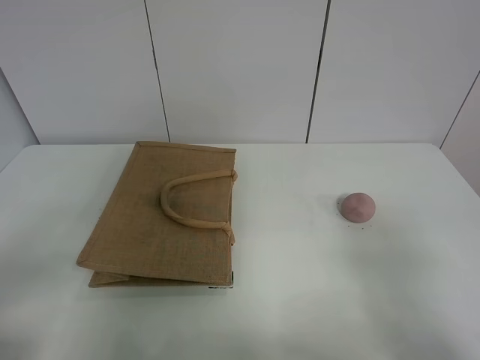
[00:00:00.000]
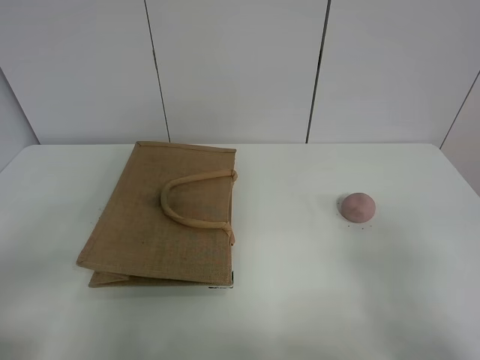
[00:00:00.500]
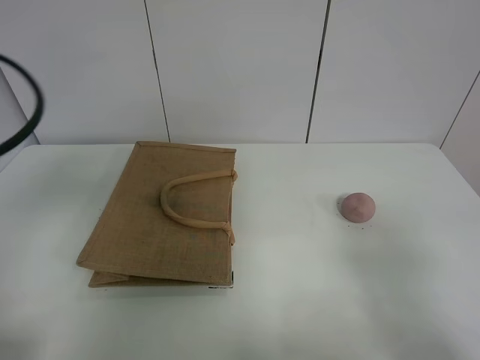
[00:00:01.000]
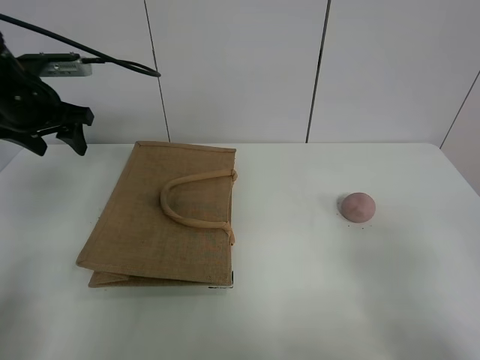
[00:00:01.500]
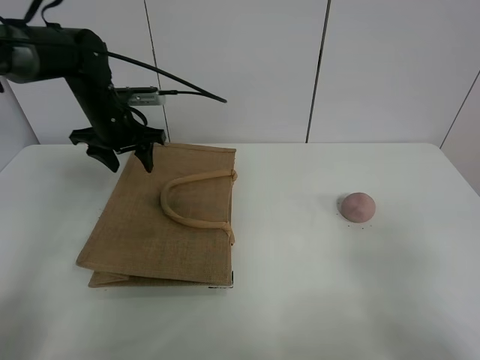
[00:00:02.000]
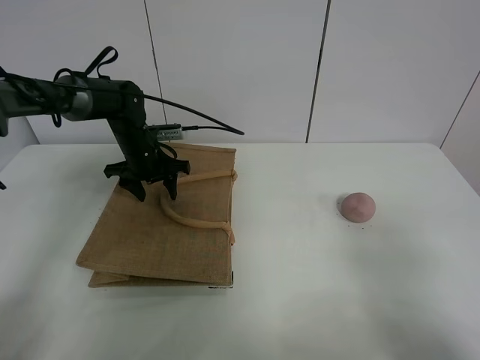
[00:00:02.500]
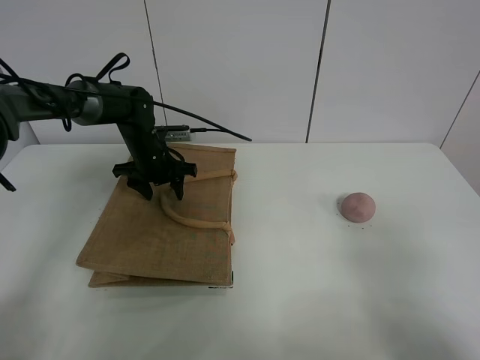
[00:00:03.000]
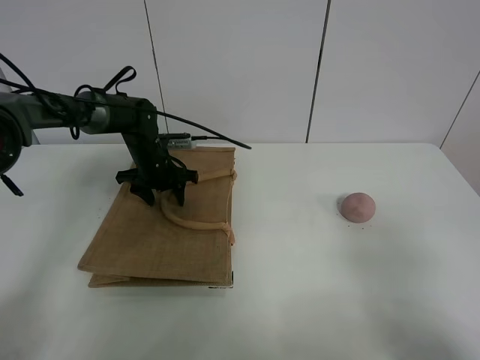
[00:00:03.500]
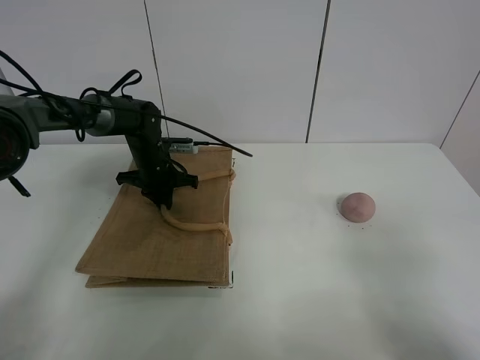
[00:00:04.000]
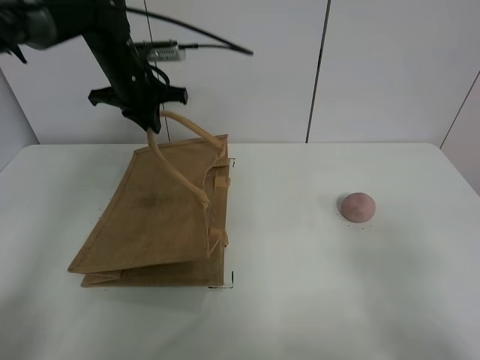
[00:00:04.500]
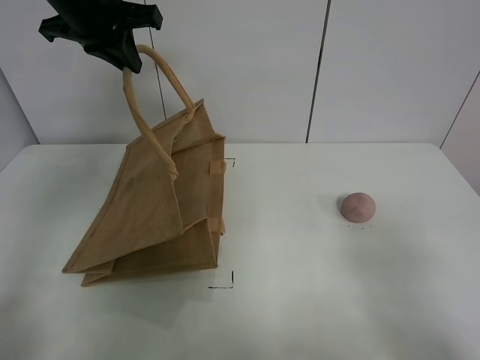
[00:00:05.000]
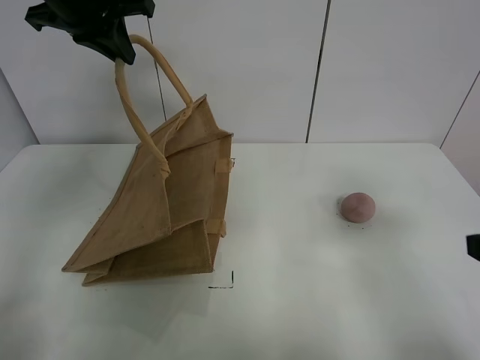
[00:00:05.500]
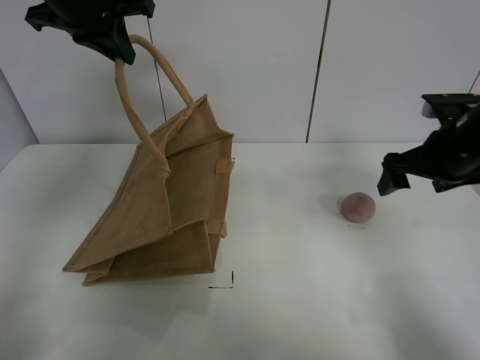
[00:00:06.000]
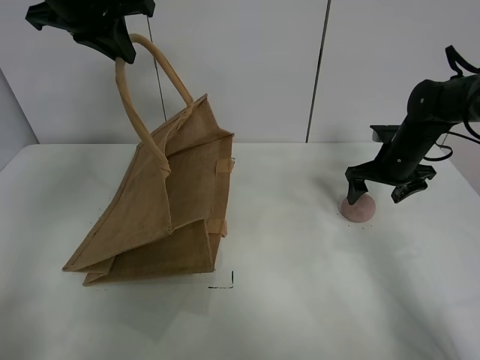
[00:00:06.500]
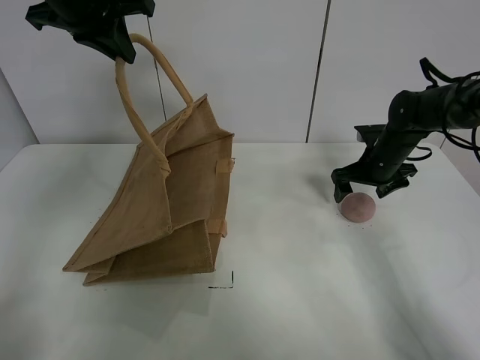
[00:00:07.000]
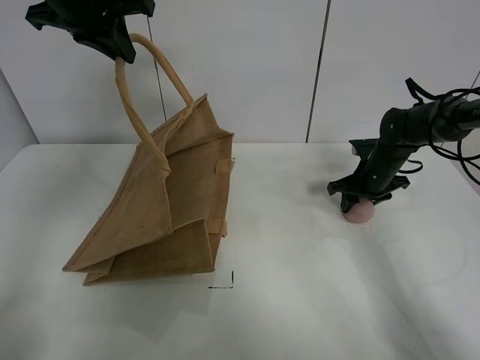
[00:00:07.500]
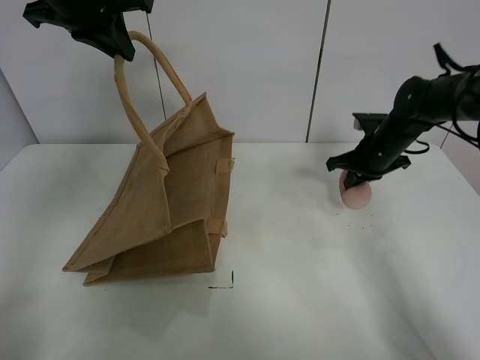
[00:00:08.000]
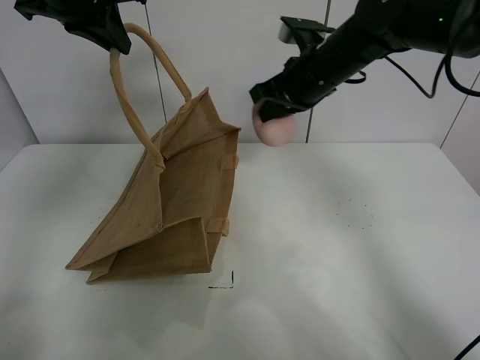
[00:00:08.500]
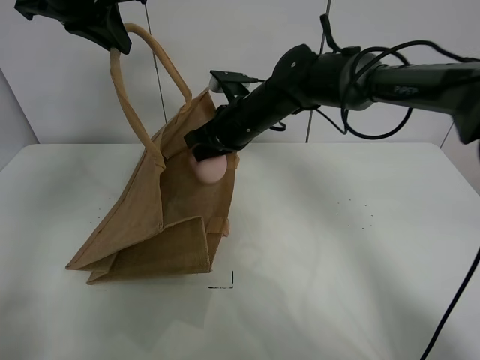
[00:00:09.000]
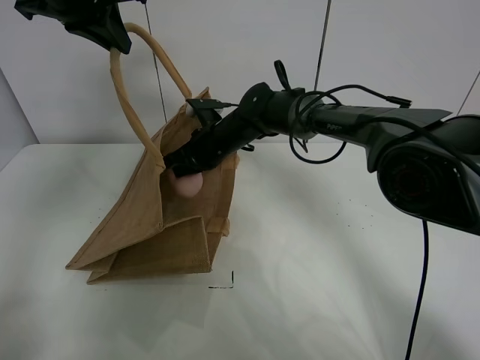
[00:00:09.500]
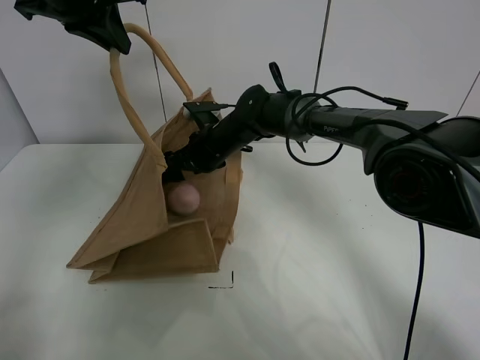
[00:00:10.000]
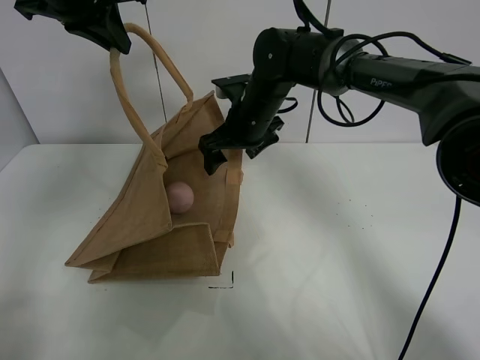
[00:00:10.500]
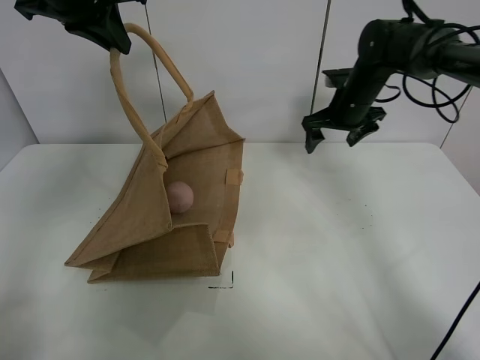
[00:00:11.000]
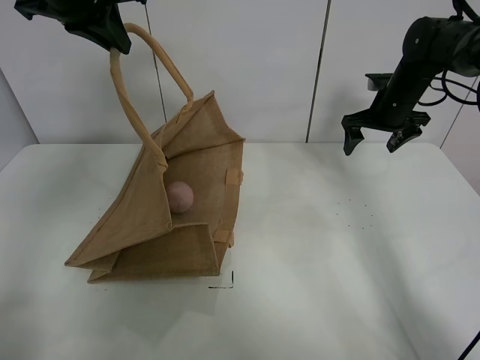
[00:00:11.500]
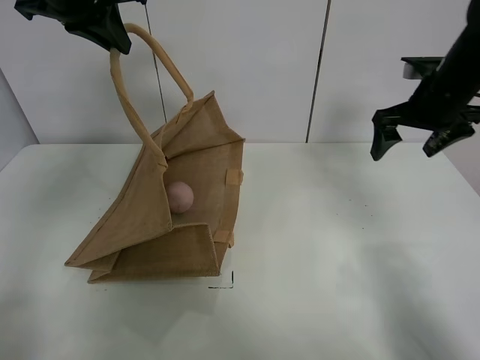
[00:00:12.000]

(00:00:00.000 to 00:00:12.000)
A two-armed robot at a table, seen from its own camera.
Task of the whole recording: open the brown linen bag and put the peach in the bag.
Step, 00:00:00.000 - 00:00:05.000: Lift the handbag with left gripper.
Step, 00:00:05.500 - 00:00:07.500: Grasp the peach with right gripper.
Step, 00:00:08.000 - 00:00:10.500: Place the peach in the handbag with right gripper.
00:00:00.000 - 00:00:02.000: The left gripper heads forward, covering some 40 cm.
00:00:02.000 - 00:00:04.000: The left gripper shifts roughly 10 cm downward, and closes its fingers.
00:00:04.000 - 00:00:06.000: The left gripper shifts some 30 cm upward; the right gripper goes about 35 cm forward.
00:00:06.000 - 00:00:08.000: The right gripper travels forward and downward by approximately 10 cm, and closes its fingers.
00:00:08.000 - 00:00:10.000: The right gripper goes roughly 30 cm to the left, and opens up.
00:00:10.000 - 00:00:12.000: The right gripper goes some 35 cm to the right and upward.

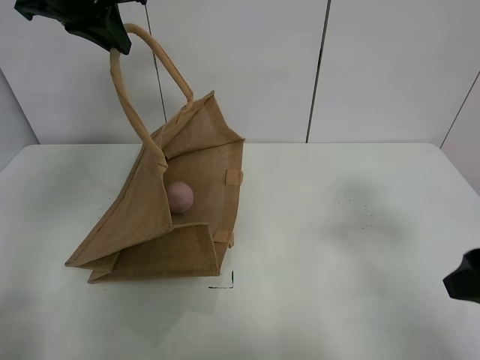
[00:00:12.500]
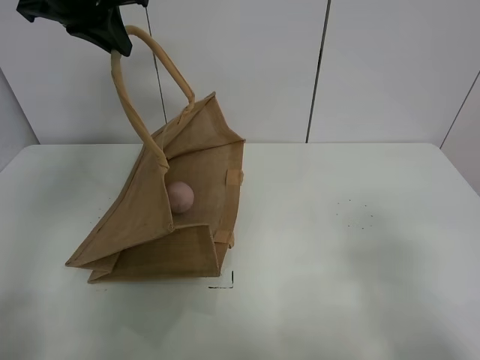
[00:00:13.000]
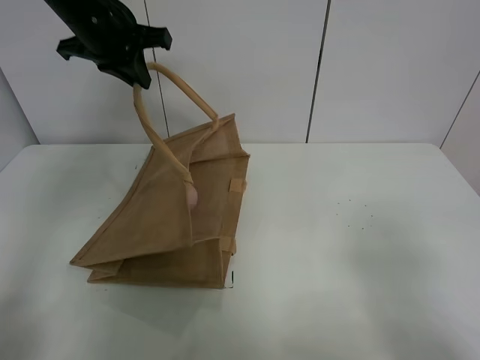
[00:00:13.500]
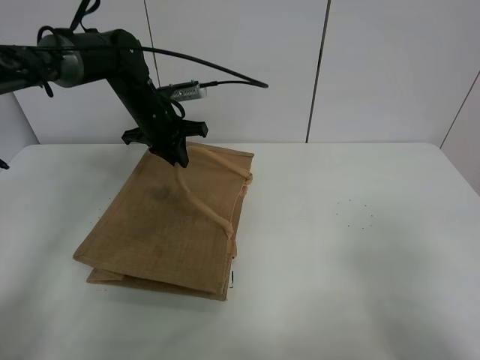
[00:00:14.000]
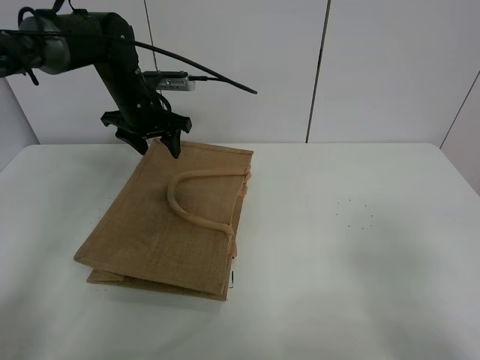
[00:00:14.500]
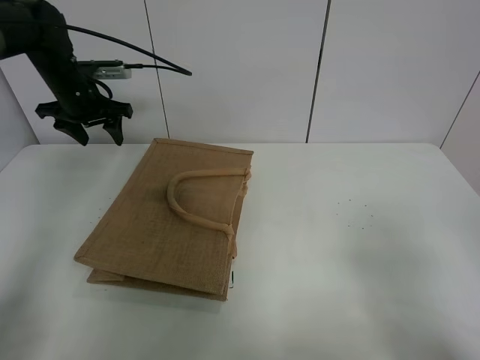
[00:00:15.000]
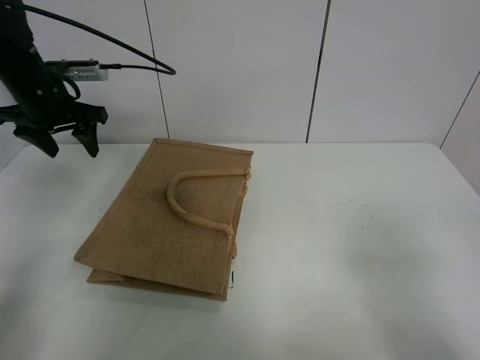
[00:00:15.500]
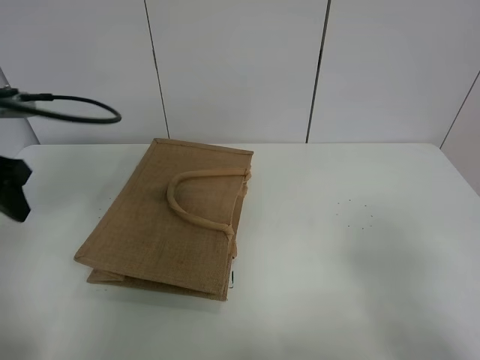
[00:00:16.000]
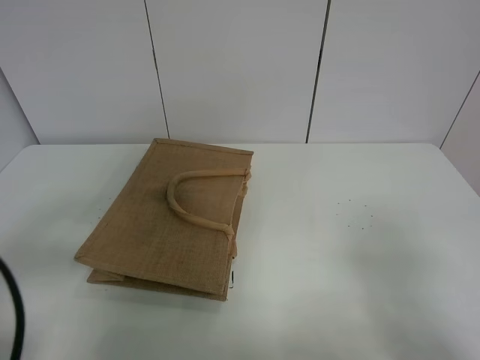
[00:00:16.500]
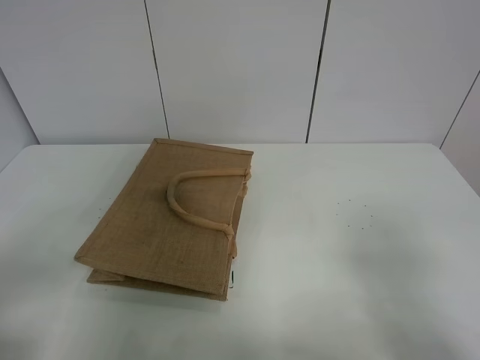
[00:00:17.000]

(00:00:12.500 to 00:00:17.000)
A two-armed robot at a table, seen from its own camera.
Task of the whole recording: open the brown linen bag and put the peach in the bag.
Step, 00:00:12.500 - 00:00:14.500: Put down the handbag with left grippe.
00:00:12.500 - 00:00:14.500: The left gripper goes roughly 20 cm downward and forward, and opens its fingers. The right gripper moves backward, roughly 10 cm.
00:00:14.500 - 00:00:17.000: The left gripper moves backward, approximately 50 cm.
